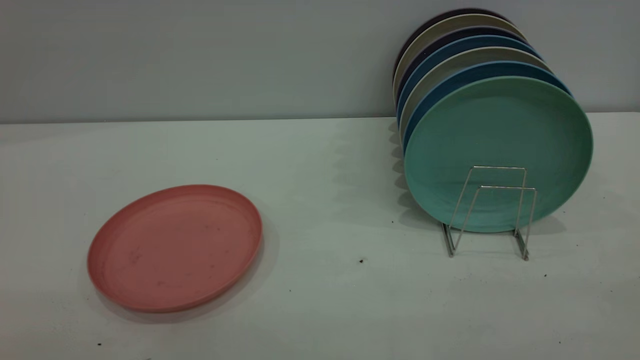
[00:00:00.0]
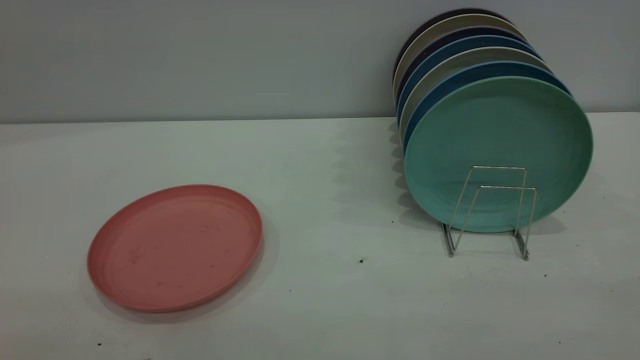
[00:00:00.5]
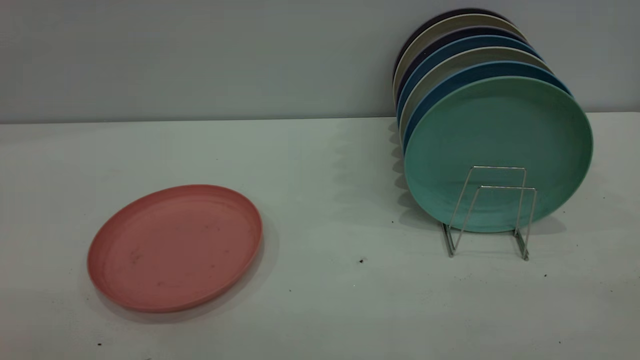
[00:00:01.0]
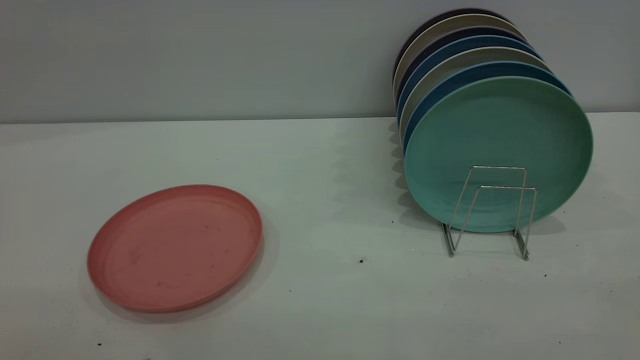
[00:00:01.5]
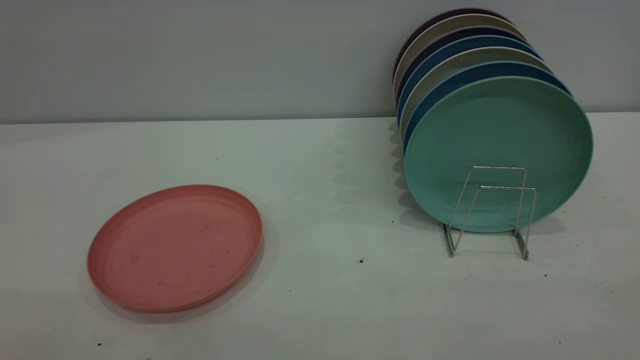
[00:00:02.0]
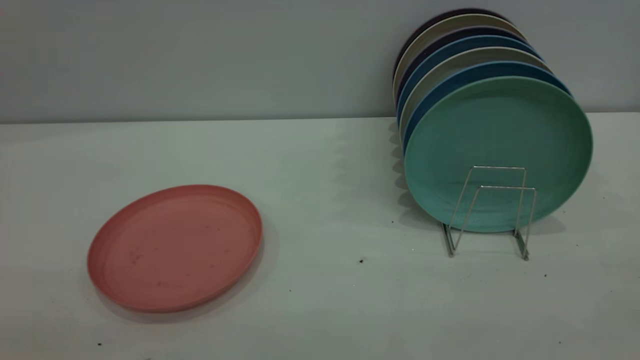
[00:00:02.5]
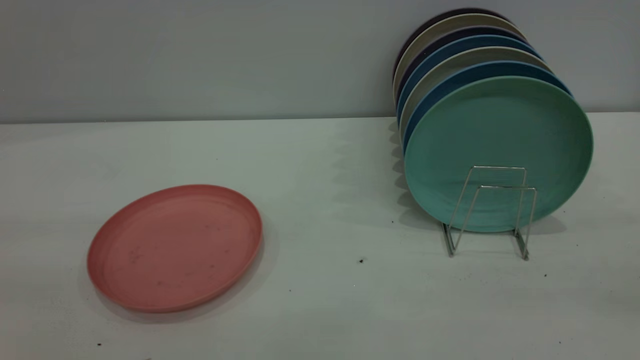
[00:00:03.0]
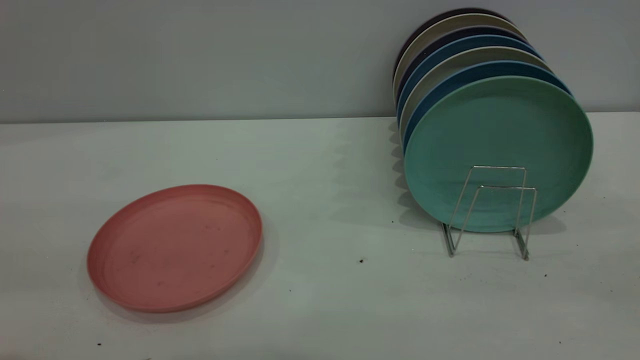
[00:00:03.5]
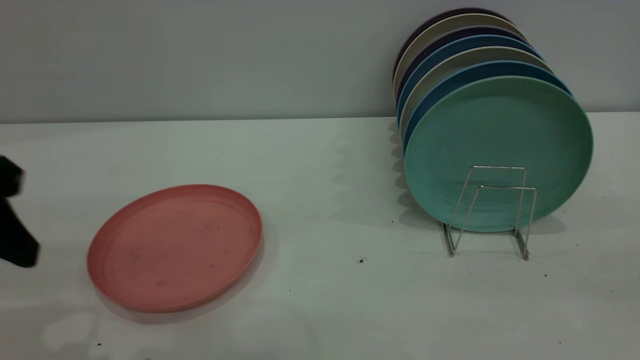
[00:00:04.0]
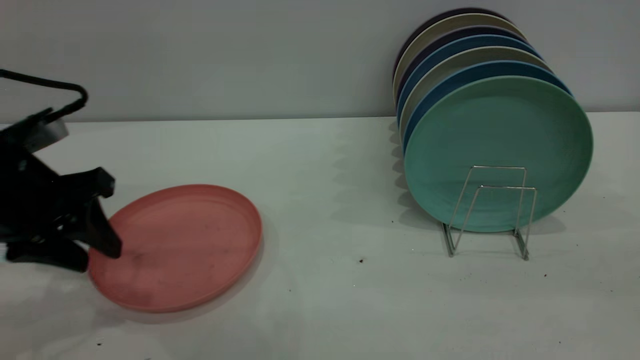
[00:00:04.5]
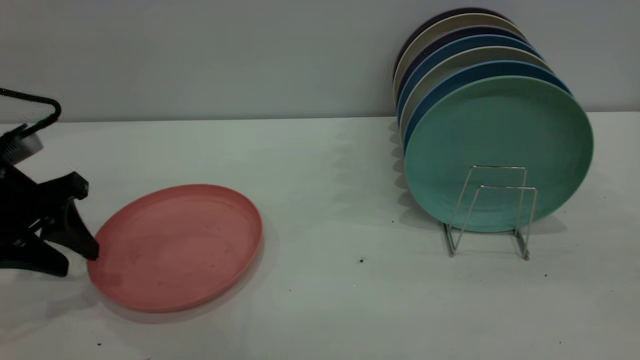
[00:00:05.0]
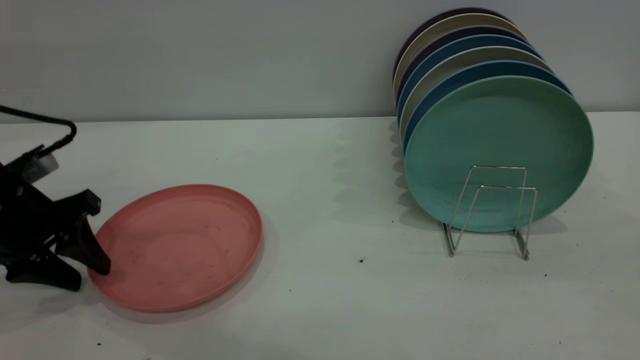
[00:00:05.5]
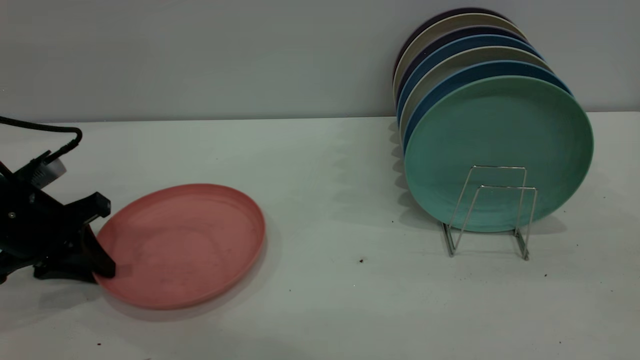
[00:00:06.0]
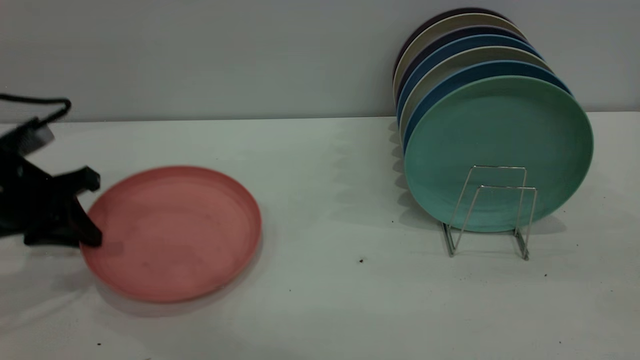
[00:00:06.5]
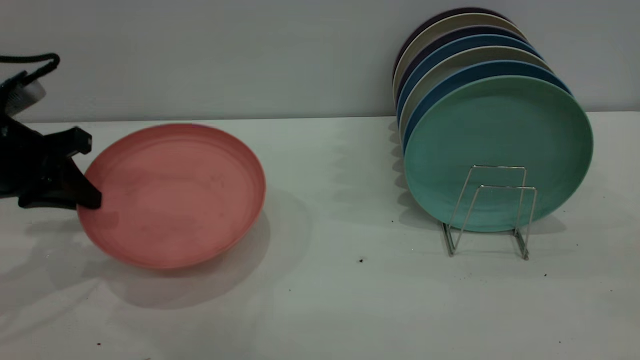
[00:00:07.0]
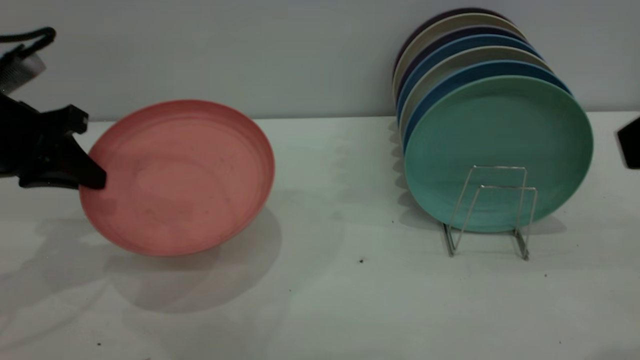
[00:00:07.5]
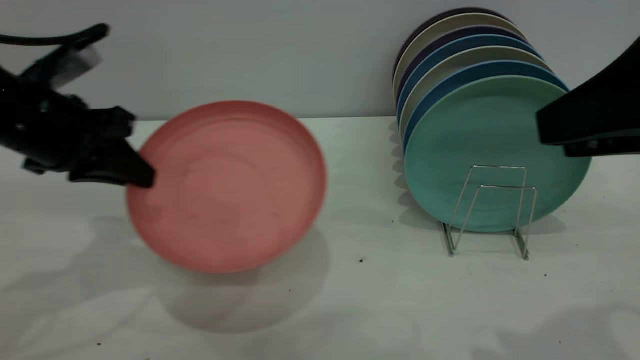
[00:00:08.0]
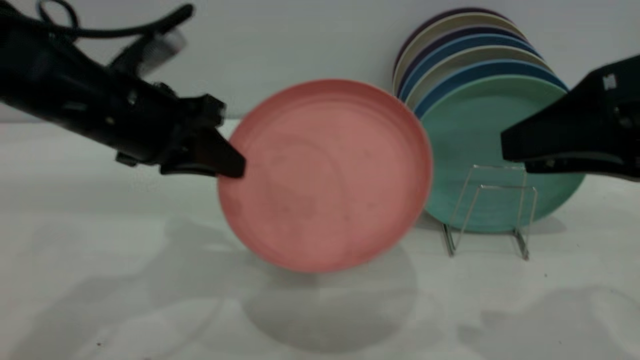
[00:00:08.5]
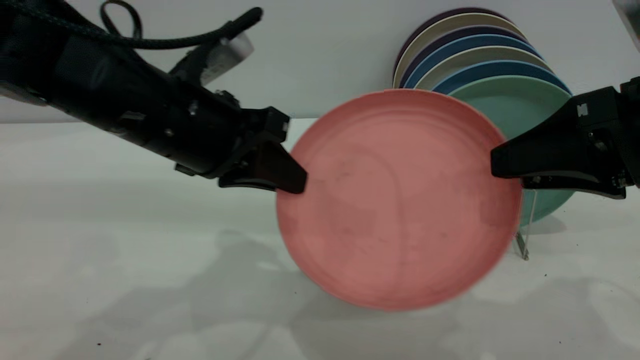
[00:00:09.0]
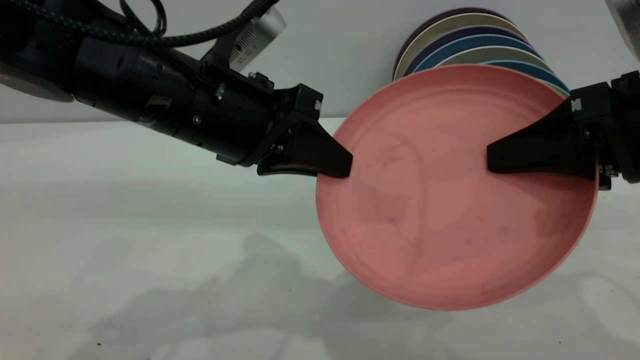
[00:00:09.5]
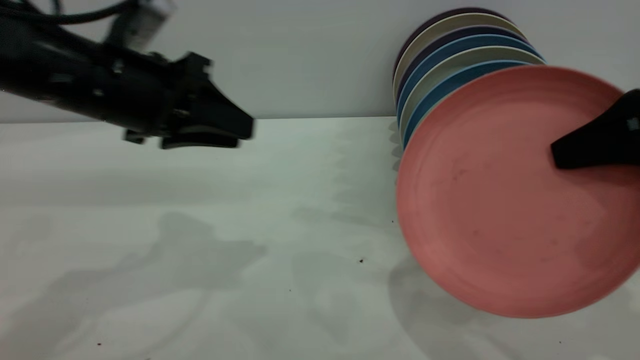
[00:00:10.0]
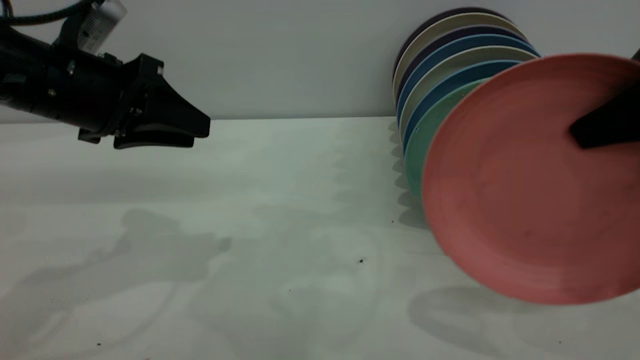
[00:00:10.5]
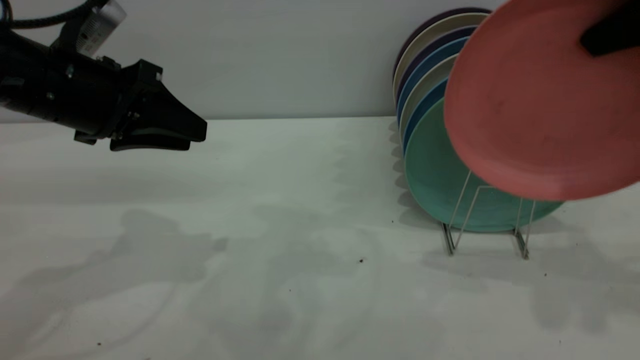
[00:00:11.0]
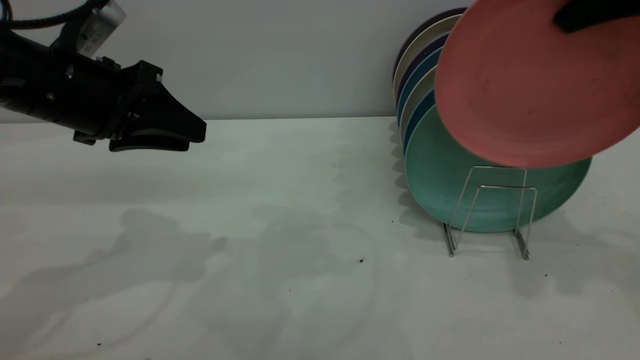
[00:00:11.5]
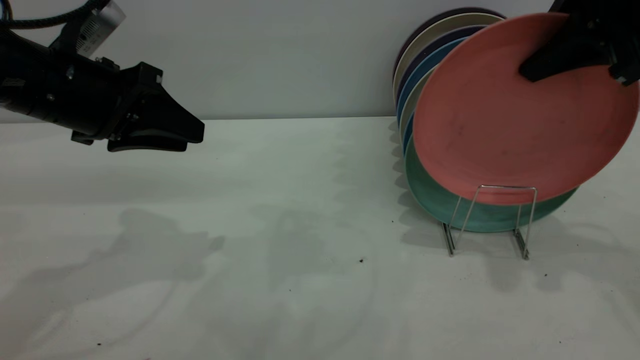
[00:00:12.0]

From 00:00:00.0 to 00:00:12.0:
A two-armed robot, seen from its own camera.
Task of the whole recording: put the plate on the plate rack.
Step, from 00:00:00.0 to 00:00:06.5: Pick up the plate with the left gripper.
Step, from 00:00:07.0 to 00:00:09.5: Pass the plate from the left gripper to the right gripper.
From 00:00:00.0 to 00:00:02.0: Both grippers stay put.
From 00:00:02.0 to 00:00:04.0: The left gripper goes about 25 cm forward and downward.
From 00:00:04.0 to 00:00:06.0: The left gripper travels downward and forward by approximately 15 cm, and closes its fingers.
From 00:00:06.0 to 00:00:08.0: The right gripper shifts approximately 5 cm forward. Meanwhile the left gripper is displaced upward and to the right by roughly 10 cm.
From 00:00:08.0 to 00:00:10.0: The right gripper travels forward by some 5 cm, and closes. The left gripper shifts approximately 5 cm to the right, and opens up.
From 00:00:10.0 to 00:00:12.0: The right gripper moves forward and upward, about 10 cm.

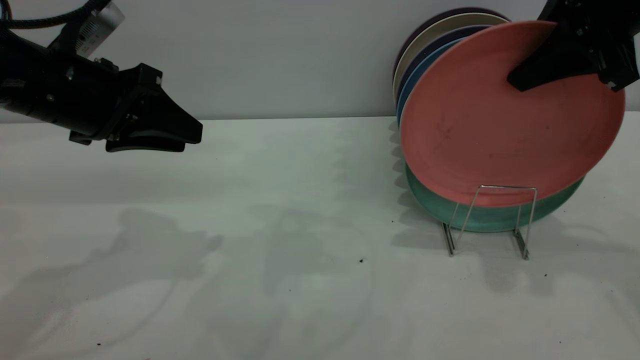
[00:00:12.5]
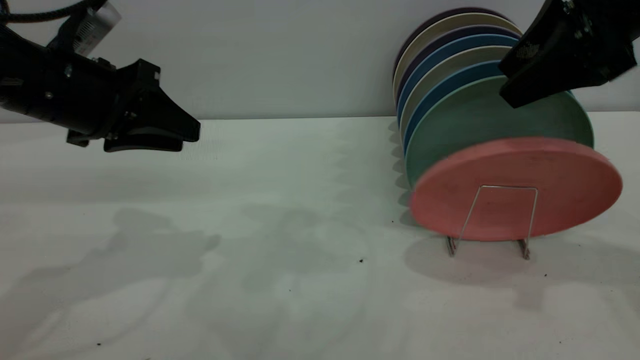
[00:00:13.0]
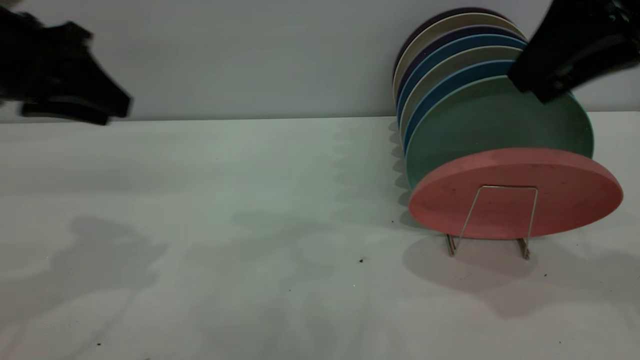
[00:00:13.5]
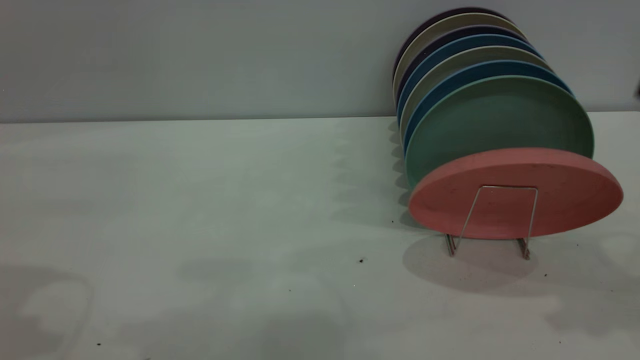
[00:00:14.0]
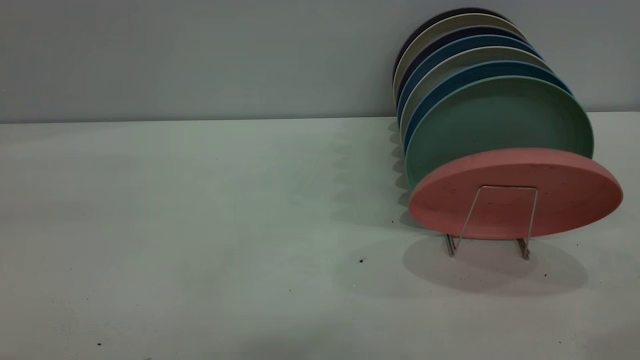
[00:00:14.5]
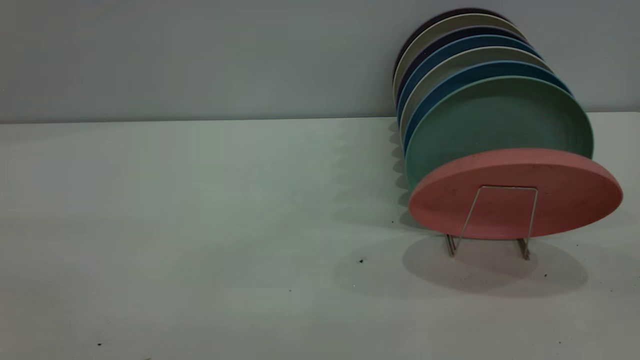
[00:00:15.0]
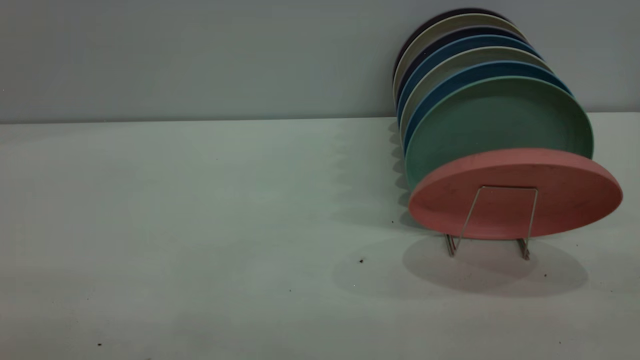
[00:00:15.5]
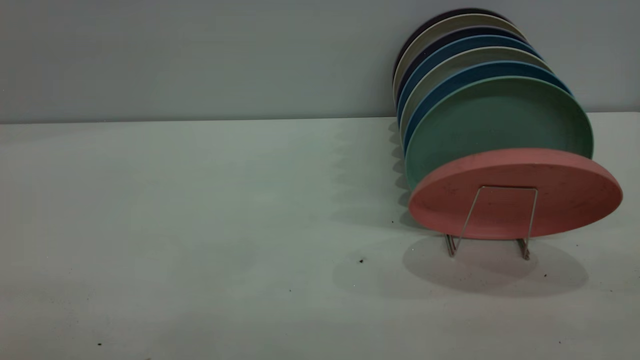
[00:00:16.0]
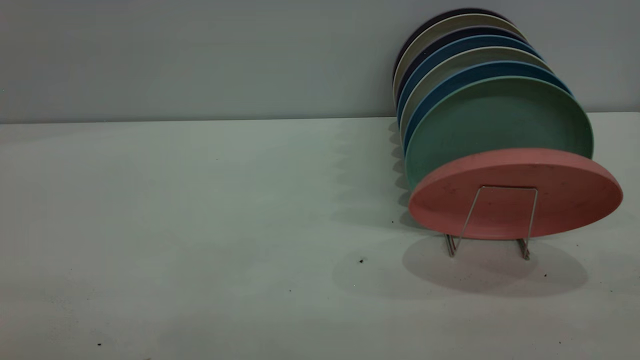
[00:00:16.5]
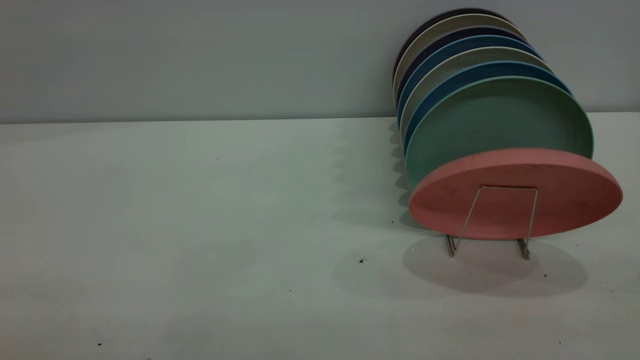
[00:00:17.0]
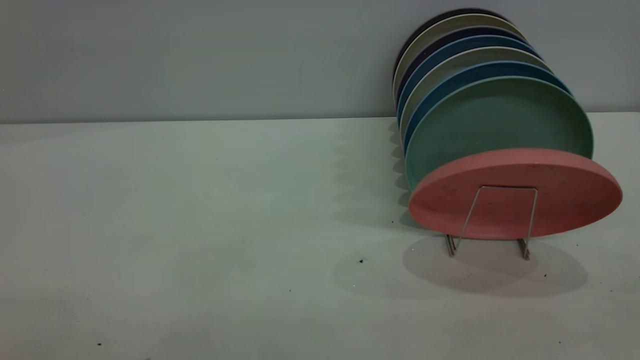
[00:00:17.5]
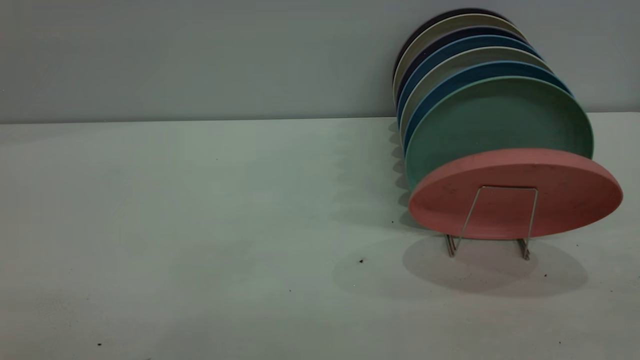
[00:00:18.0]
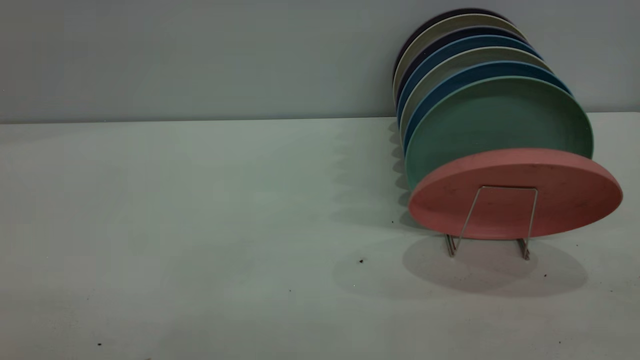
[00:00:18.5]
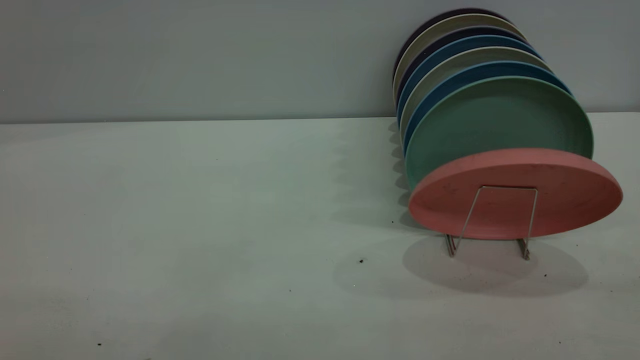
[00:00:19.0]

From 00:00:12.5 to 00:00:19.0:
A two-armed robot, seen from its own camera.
Task of the whole recording: put the plate on the plate rack.
From 00:00:12.5 to 00:00:14.5: The left gripper travels upward and backward by some 30 cm. Meanwhile the right gripper moves backward and upward, roughly 25 cm, and opens up.
